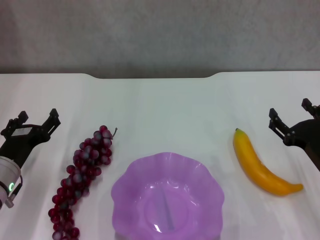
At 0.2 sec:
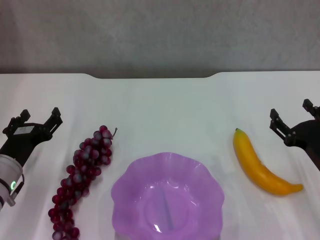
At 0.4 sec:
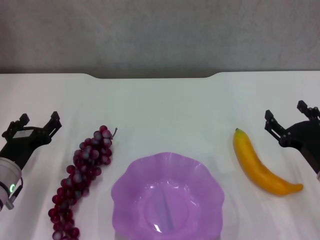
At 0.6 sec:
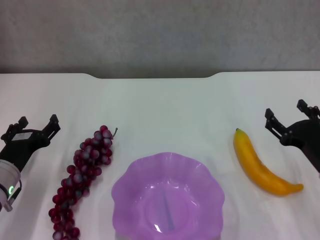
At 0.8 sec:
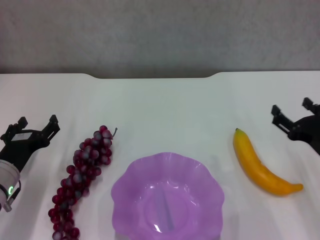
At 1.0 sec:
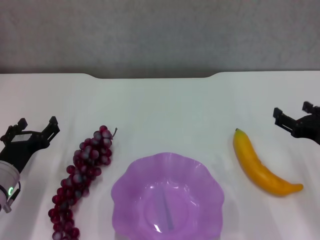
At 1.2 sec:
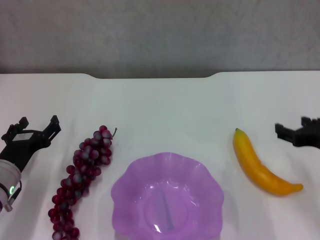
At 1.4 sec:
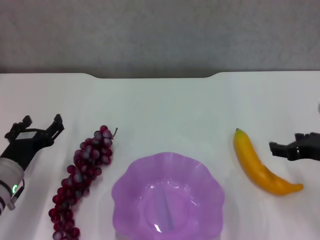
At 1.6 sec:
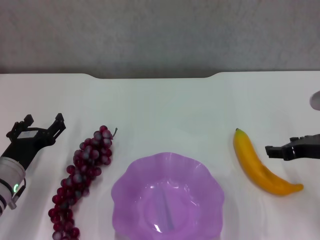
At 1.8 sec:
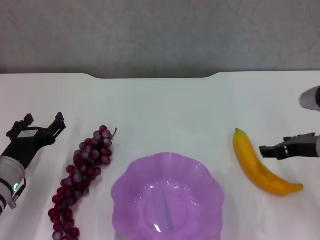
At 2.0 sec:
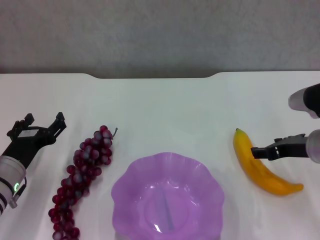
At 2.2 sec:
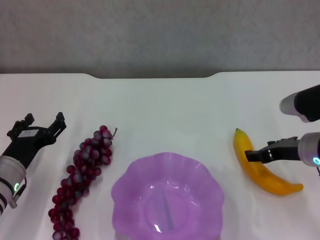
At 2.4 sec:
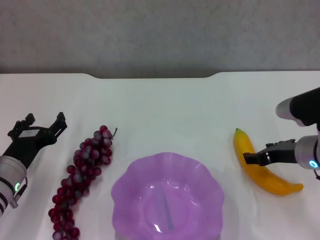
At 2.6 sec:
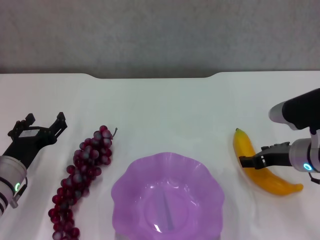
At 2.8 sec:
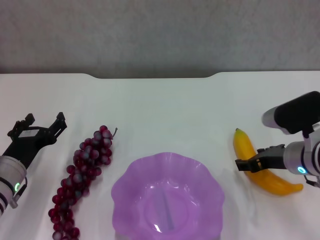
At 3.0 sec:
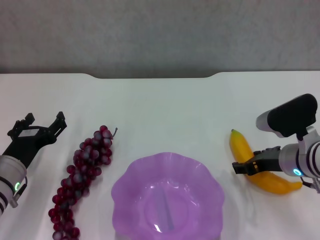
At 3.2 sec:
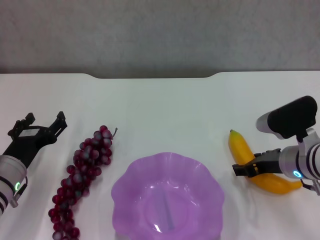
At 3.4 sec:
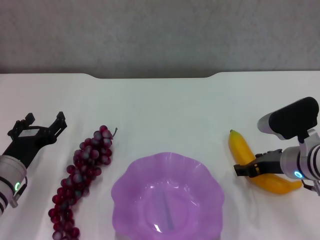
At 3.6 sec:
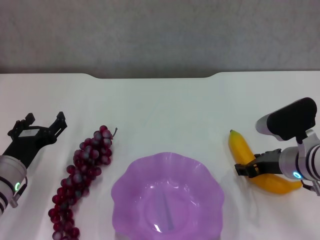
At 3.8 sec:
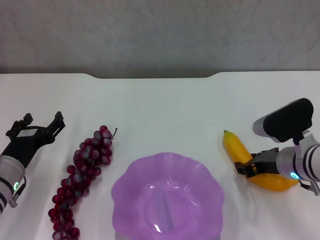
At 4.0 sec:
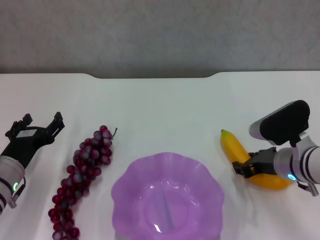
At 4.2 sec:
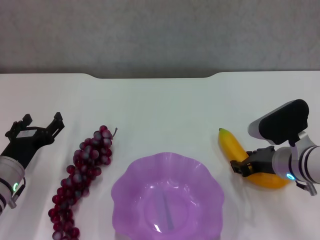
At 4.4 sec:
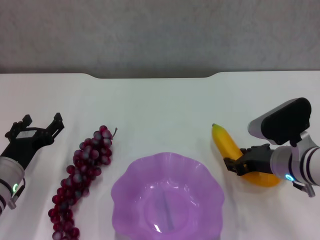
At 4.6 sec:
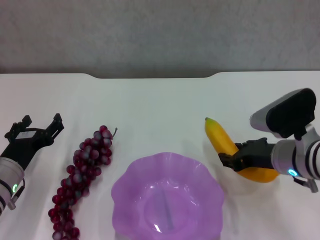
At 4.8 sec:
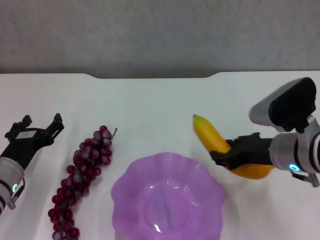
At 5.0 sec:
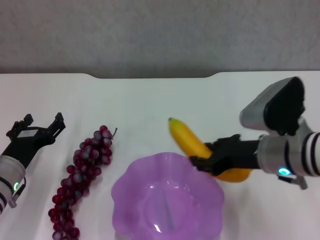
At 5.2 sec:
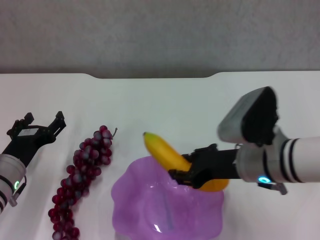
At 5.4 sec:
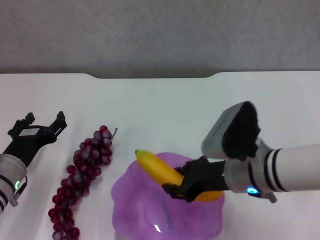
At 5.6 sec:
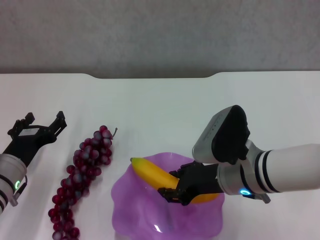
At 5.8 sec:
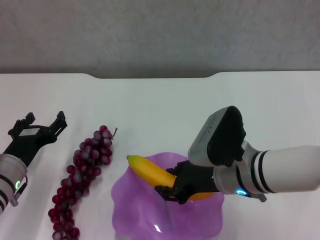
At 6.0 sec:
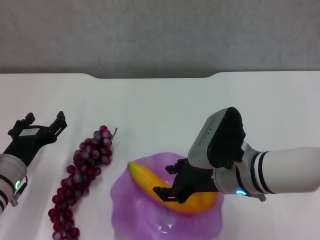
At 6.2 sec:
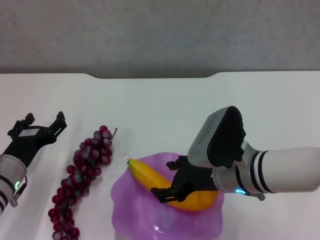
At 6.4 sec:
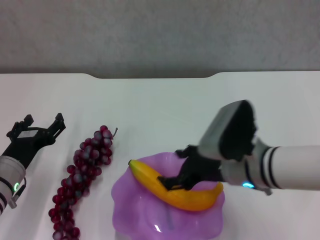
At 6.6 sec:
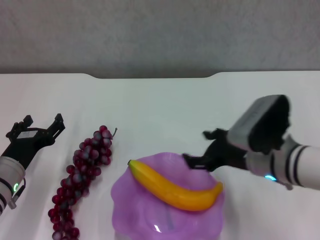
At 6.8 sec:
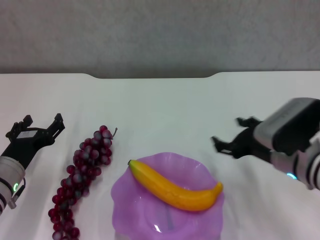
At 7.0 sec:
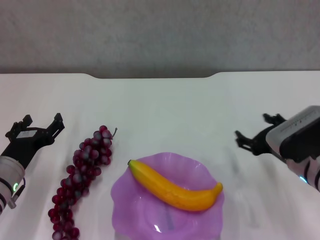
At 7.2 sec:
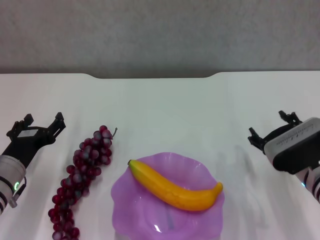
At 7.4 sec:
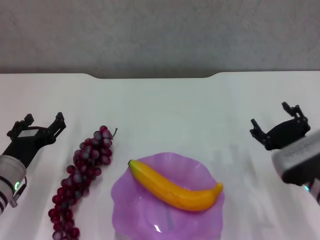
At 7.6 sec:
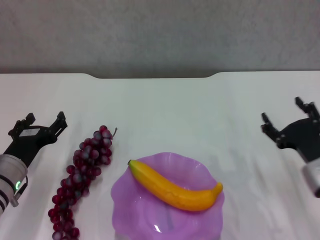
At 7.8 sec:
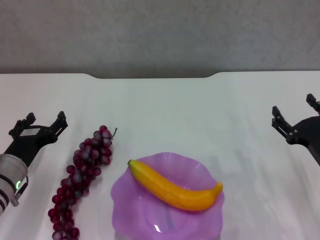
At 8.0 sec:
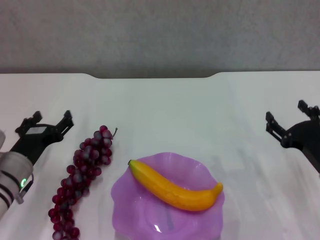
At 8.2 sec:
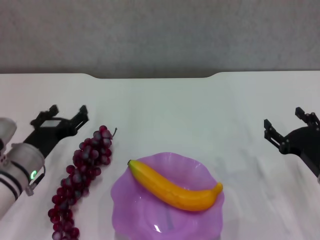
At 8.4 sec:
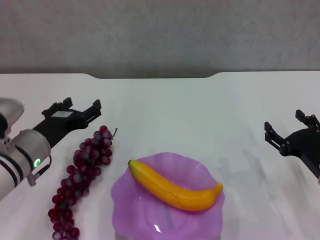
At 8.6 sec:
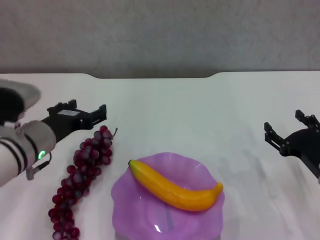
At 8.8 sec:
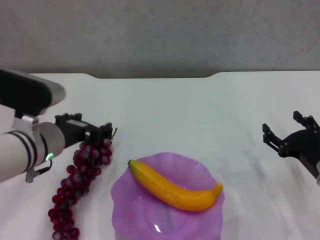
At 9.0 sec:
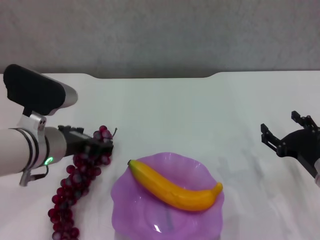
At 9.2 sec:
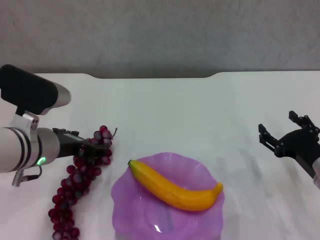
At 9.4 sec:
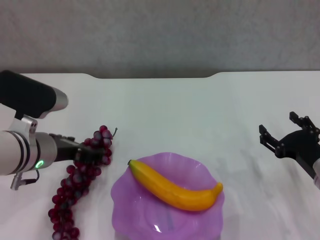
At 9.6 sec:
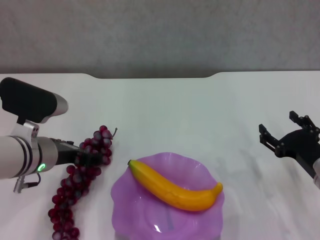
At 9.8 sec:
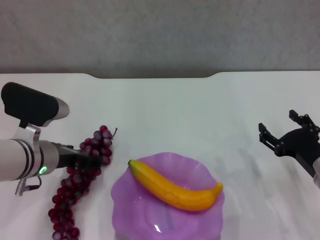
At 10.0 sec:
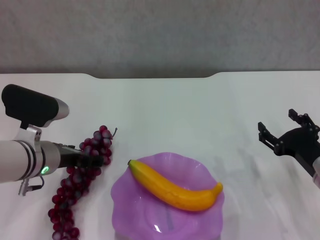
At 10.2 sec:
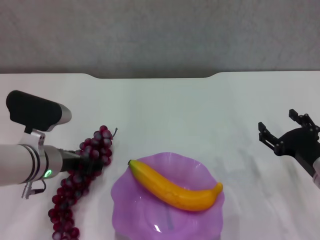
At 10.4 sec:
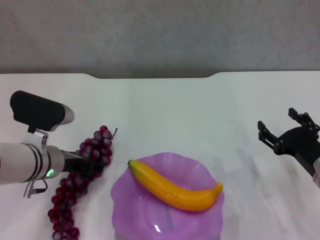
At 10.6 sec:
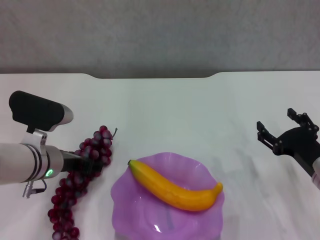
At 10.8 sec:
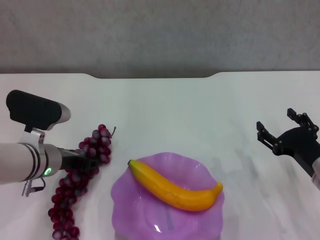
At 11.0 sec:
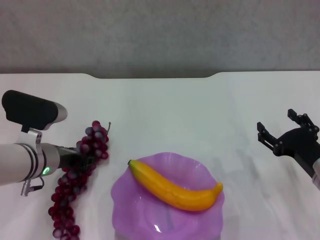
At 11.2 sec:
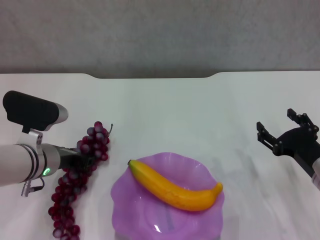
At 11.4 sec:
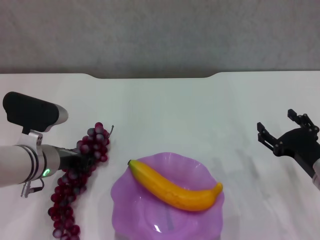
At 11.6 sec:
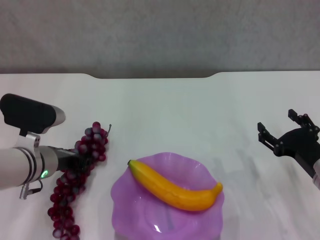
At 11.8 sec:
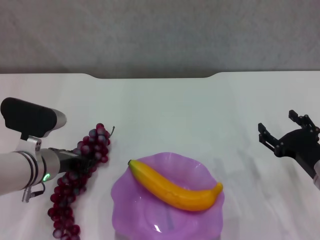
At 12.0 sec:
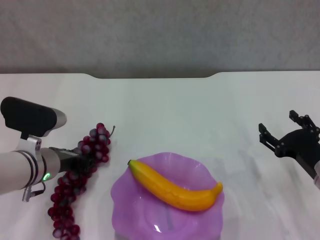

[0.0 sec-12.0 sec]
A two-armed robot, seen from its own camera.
Step, 0.0 sec to 3.6 sec: Grasp the banana with right gripper.
Step, 4.0 sec to 6.4 sec: Place the banana in the purple plate with right gripper.
Step, 6.6 sec to 11.0 sec: Grasp the grape with left gripper.
0.0 sec to 1.6 sec: The right gripper heads upward, covering roughly 10 cm.
1.6 sec to 3.0 sec: The right gripper moves downward and to the left, roughly 10 cm.
3.0 sec to 4.4 sec: The right gripper closes.
4.4 sec to 6.0 sec: The right gripper travels to the left by some 10 cm.
6.0 sec to 7.6 sec: The right gripper is displaced to the right by about 15 cm, and opens its fingers.
7.6 sec to 9.0 sec: The left gripper heads upward and to the right, covering roughly 15 cm.
9.0 sec to 10.4 sec: The left gripper heads downward, covering approximately 5 cm.
10.4 sec to 12.0 sec: The left gripper closes its fingers.

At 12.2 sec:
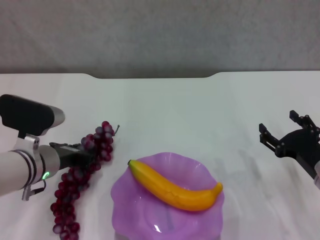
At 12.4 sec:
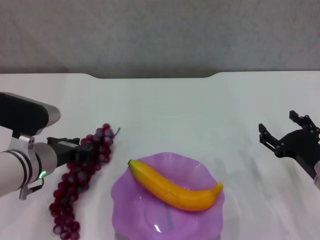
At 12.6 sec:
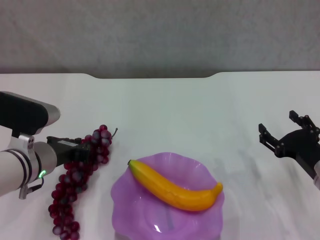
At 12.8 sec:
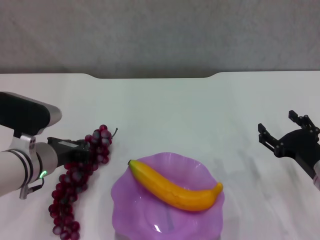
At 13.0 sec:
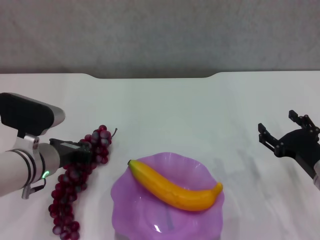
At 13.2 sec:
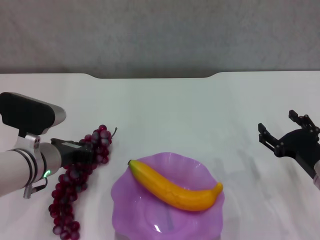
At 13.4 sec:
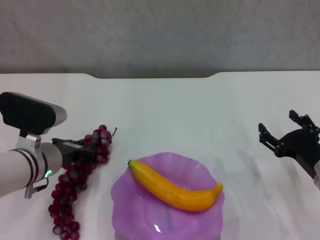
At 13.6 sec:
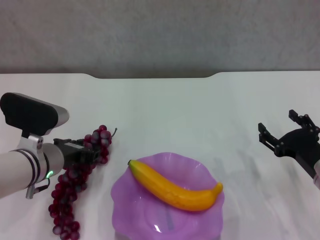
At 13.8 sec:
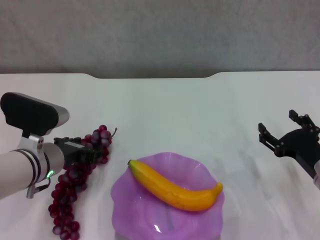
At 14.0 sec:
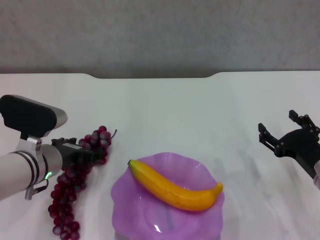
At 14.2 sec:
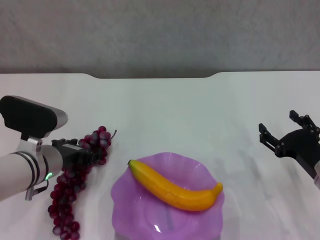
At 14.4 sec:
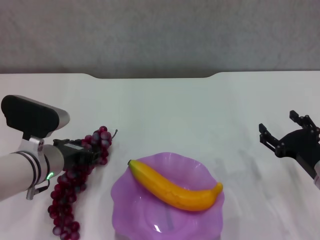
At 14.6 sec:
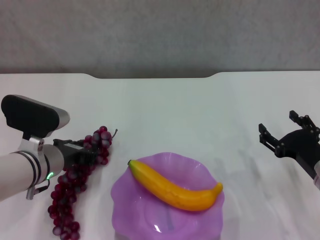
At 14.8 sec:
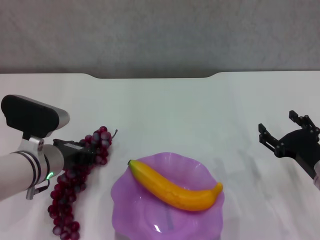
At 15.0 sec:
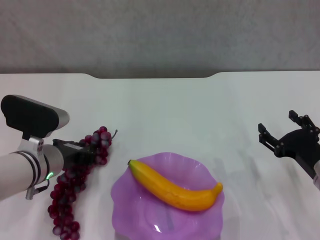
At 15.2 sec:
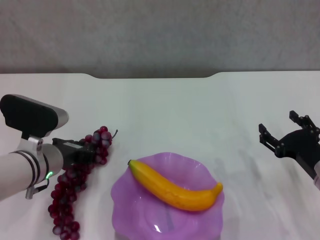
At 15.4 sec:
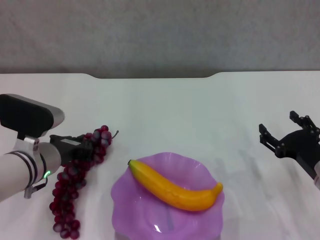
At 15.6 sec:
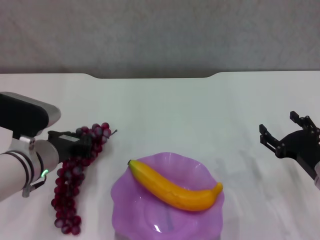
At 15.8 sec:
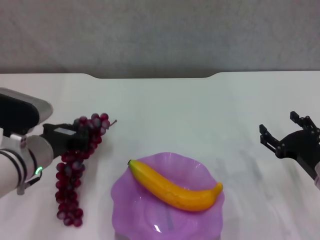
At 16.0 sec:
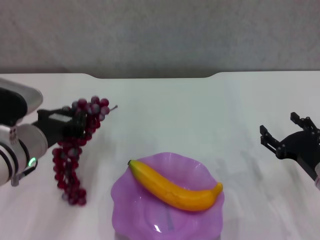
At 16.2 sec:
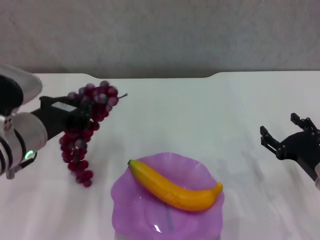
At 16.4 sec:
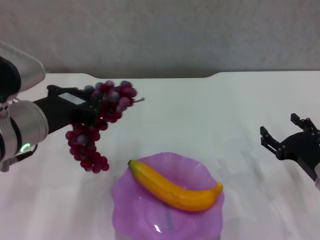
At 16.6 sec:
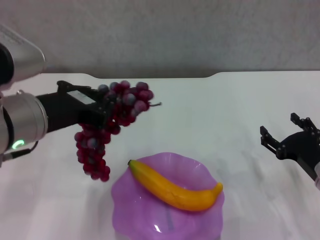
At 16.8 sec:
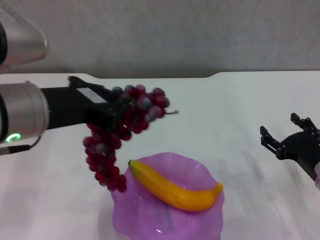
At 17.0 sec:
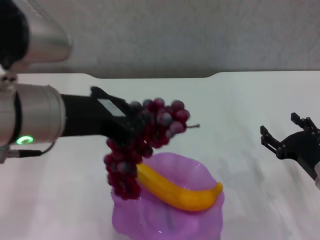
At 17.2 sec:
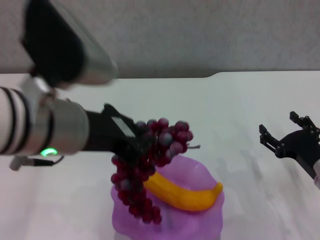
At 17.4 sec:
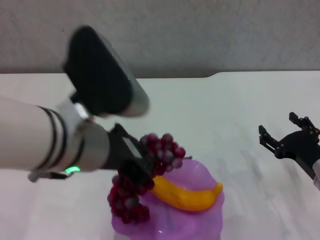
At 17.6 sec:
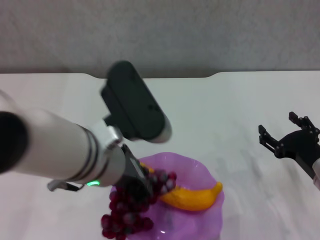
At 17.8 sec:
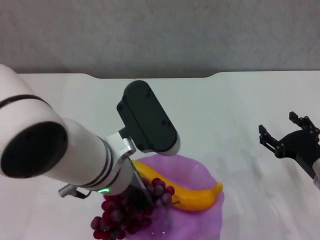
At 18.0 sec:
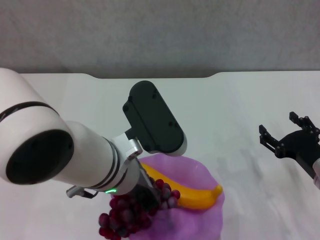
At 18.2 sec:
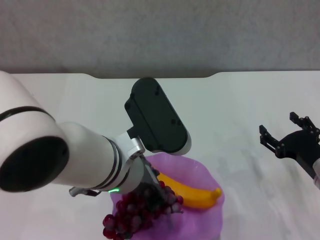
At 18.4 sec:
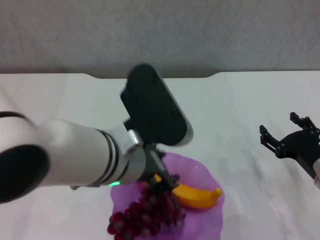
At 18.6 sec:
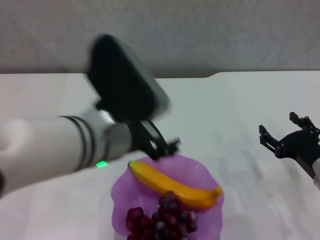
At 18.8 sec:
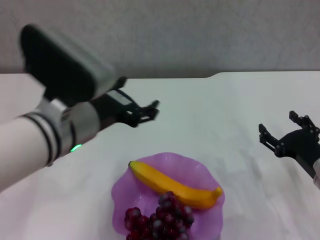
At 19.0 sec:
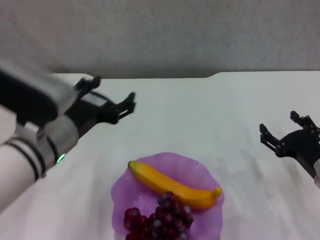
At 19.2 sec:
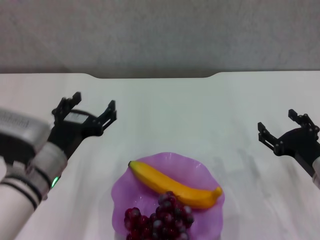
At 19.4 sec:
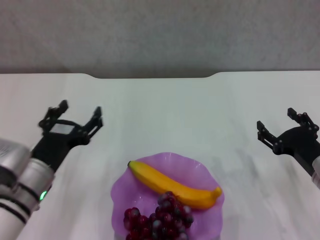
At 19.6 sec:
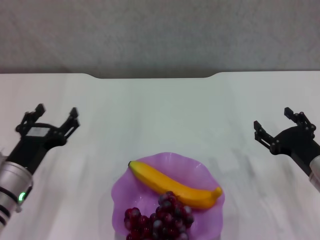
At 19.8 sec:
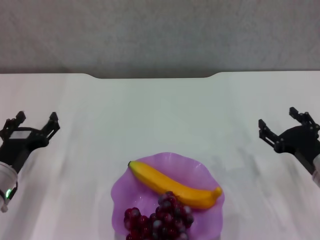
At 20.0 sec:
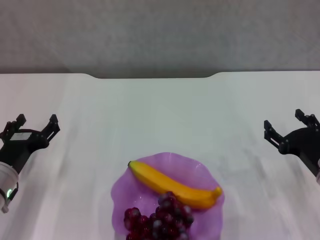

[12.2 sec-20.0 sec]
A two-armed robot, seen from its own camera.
Step, 12.2 sec to 18.6 sec: Place the grape in the purple plate with left gripper.
12.2 sec to 13.8 sec: The left gripper closes, then opens again.
13.8 sec to 15.4 sec: The left gripper closes its fingers.
15.4 sec to 16.8 sec: The left gripper travels upward by about 20 cm.
16.8 sec to 18.4 sec: The left gripper travels to the right and downward by approximately 10 cm.
18.4 sec to 20.0 sec: The left gripper heads to the left and downward, covering approximately 25 cm, and opens its fingers.
